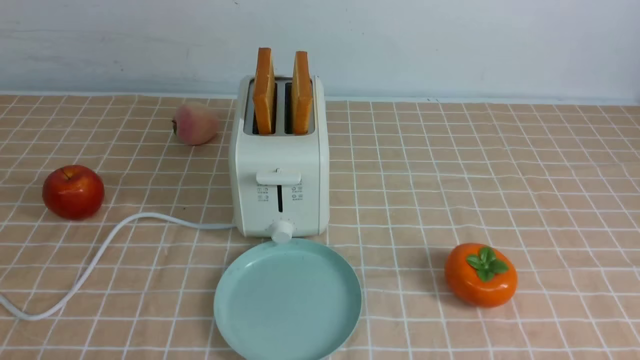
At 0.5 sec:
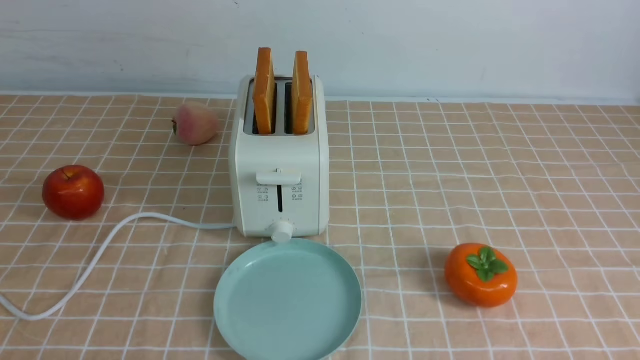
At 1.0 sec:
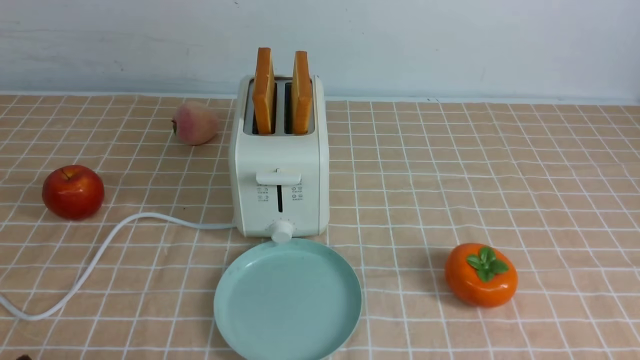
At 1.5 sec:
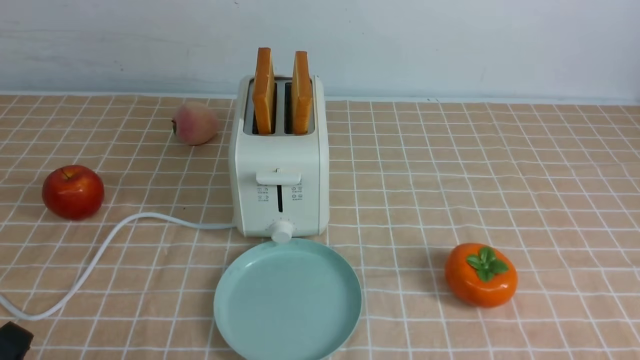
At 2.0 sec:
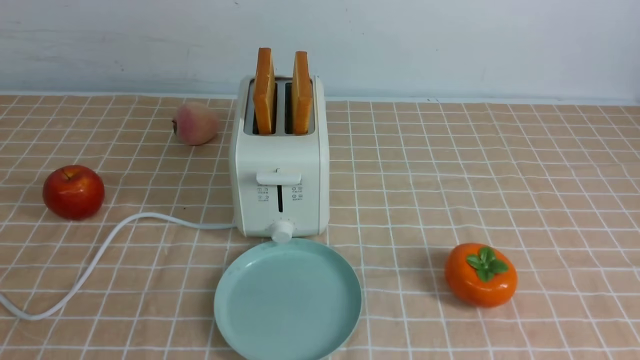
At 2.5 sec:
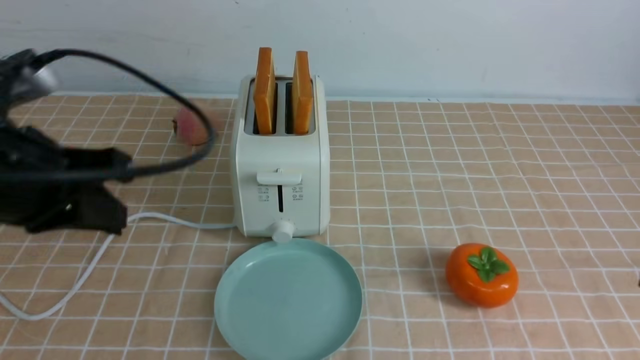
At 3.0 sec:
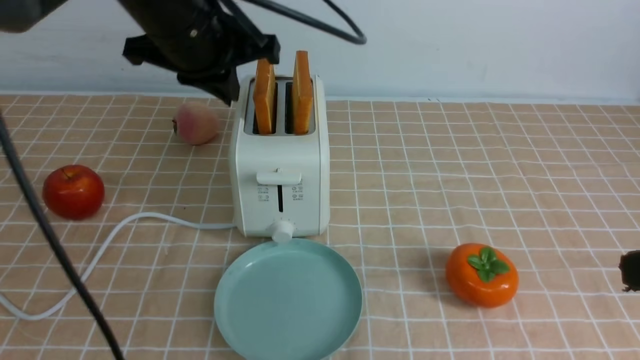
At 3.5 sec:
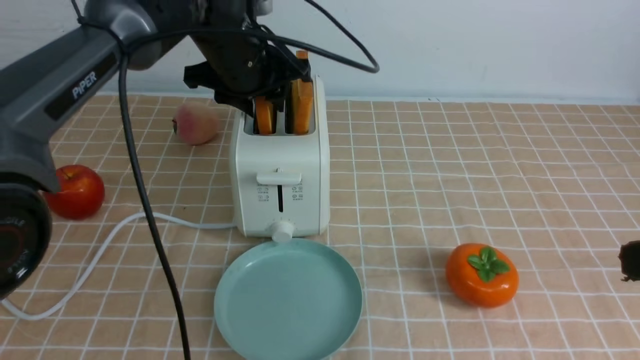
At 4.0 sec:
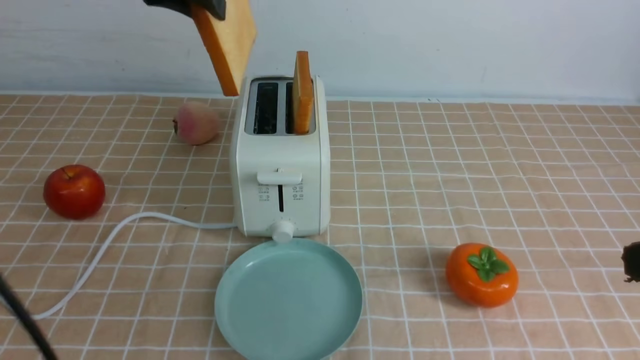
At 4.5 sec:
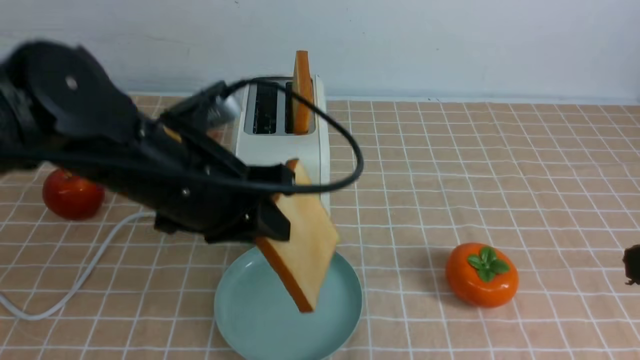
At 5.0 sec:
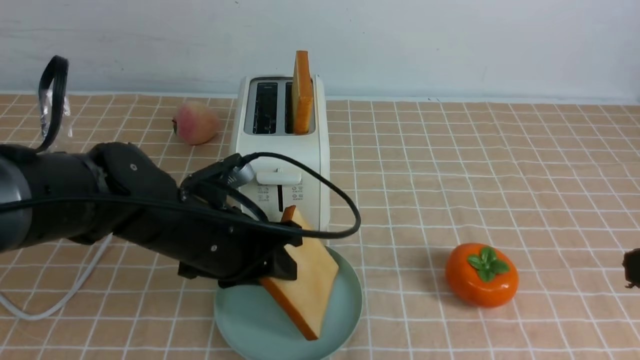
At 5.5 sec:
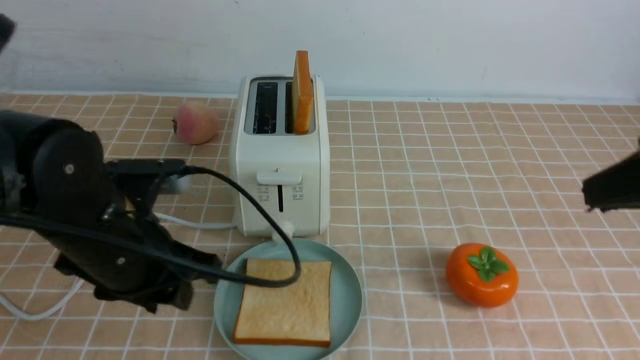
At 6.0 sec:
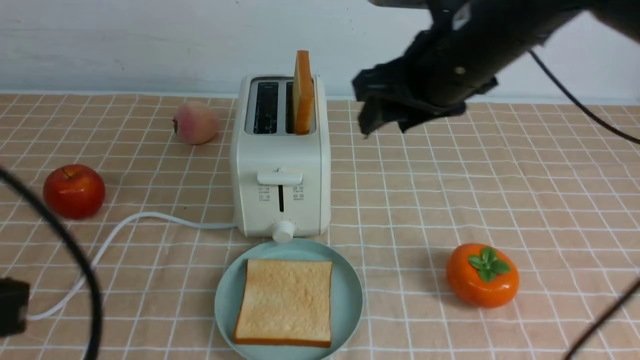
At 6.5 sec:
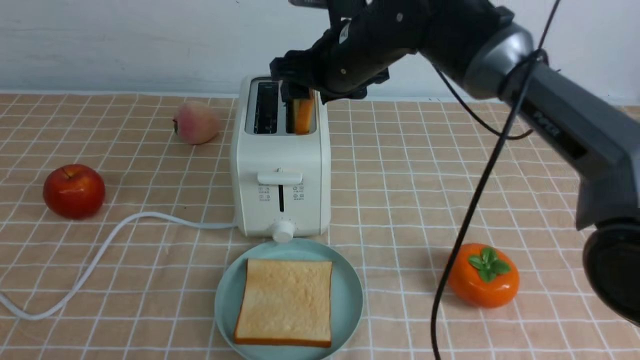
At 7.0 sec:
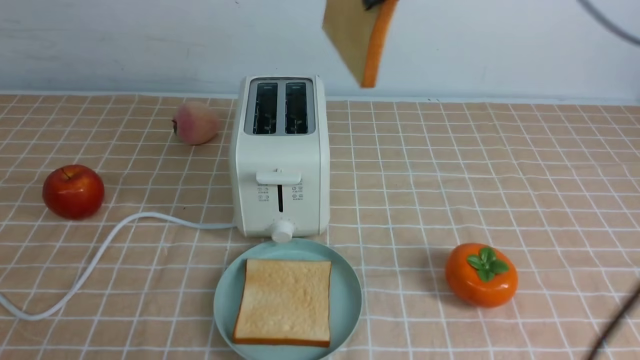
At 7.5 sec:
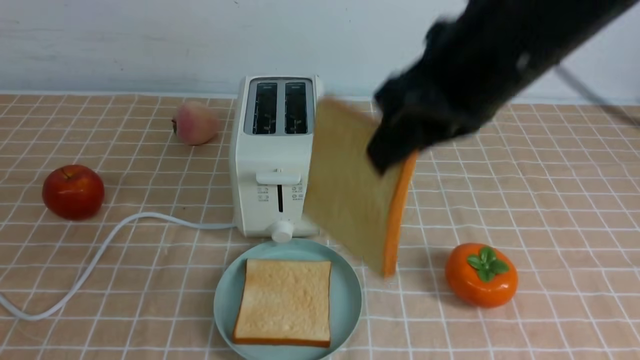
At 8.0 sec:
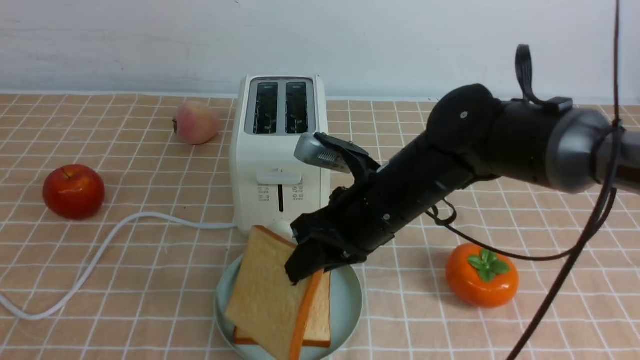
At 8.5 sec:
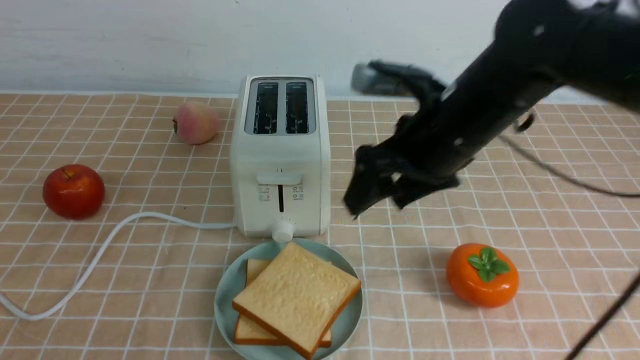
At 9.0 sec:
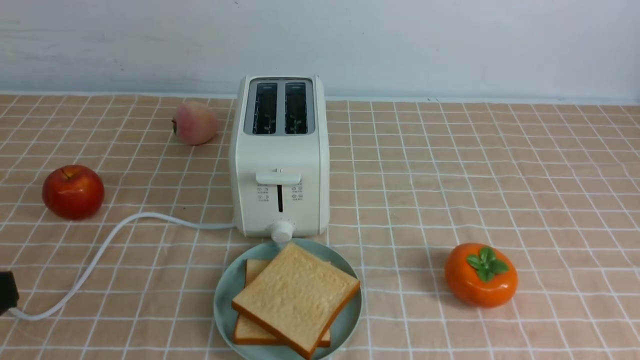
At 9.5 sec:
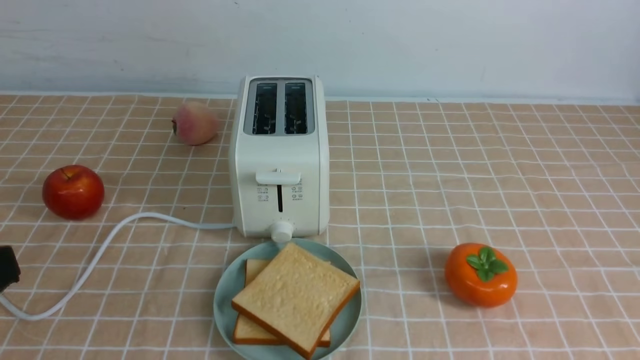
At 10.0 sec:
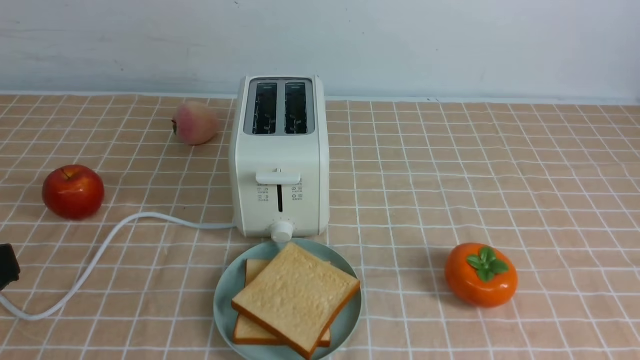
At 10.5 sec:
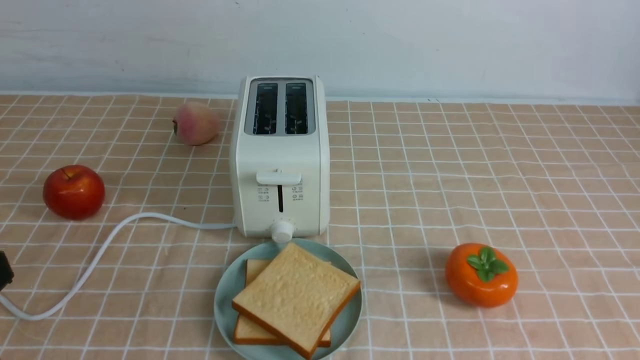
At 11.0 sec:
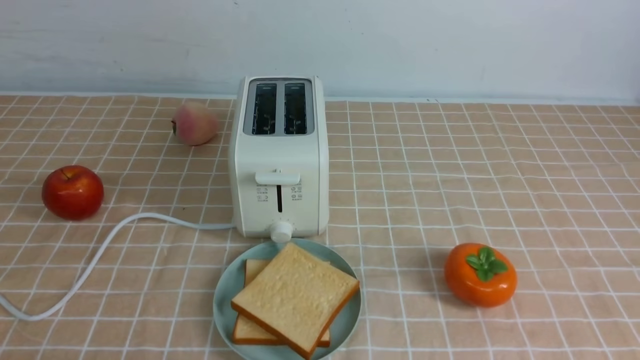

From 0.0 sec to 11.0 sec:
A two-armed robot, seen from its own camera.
Task of the whole recording: take toasted bread from bread machine on light coffee tablecloth place on plate.
Step, from 0.0 sec to 3.5 sec: use the left arm to take out a slice of bread.
Step, from 4.0 sec to 5.0 sec: use the left arm to put a slice of bread into the empty plate.
Step, from 5.5 sec to 6.5 sec: use the right arm to take out a slice of bread.
Step, from 7.0 sec to 8.0 sec: use the right arm to put a slice of bread into the plate.
From 2.0 sec to 3.5 sec: The right gripper heads forward, covering some 10 cm. The left gripper moves forward, approximately 40 cm, and opens.
From 3.5 sec to 5.5 sec: The right gripper goes roughly 5 cm forward. Meanwhile the left gripper goes up and down, approximately 25 cm each way, reversing 2 times, and closes and opens again.
From 5.5 sec to 7.5 sec: The left gripper travels backward and to the left by some 20 cm, and closes up. The right gripper travels to the left by about 15 cm, goes forward and returns, roughly 25 cm each way, and opens, then closes again.
From 7.5 sec to 9.0 sec: The right gripper is displaced to the right and backward by approximately 25 cm, reaches some 15 cm downward, then returns, and opens, then closes again.
